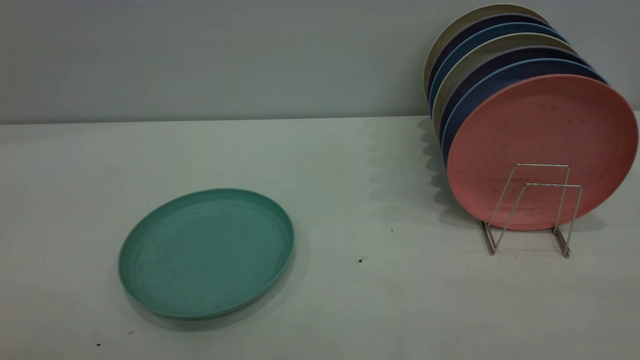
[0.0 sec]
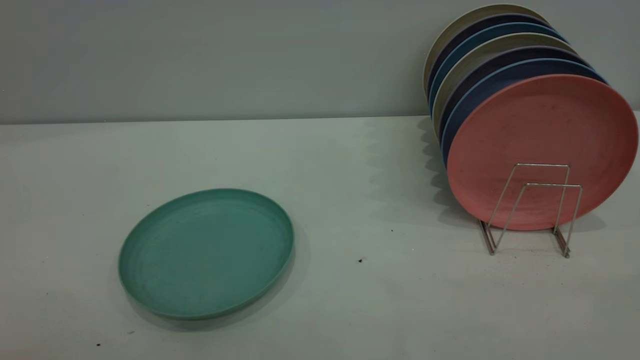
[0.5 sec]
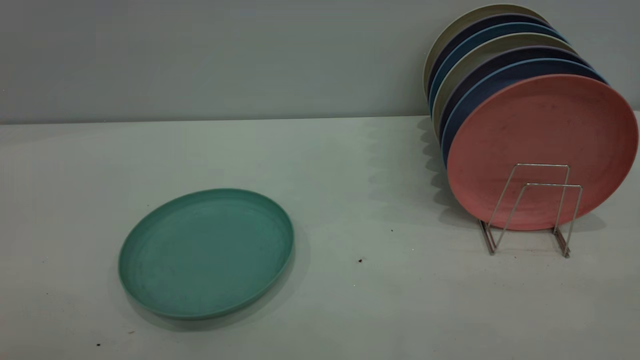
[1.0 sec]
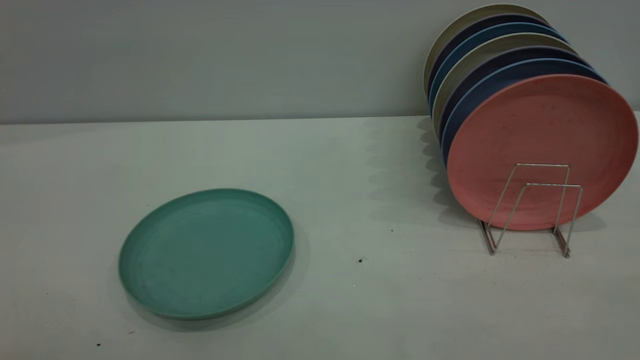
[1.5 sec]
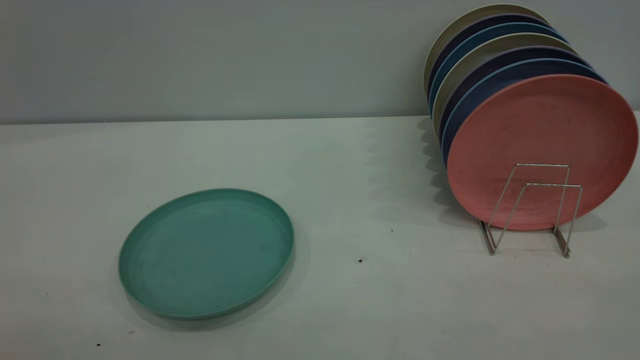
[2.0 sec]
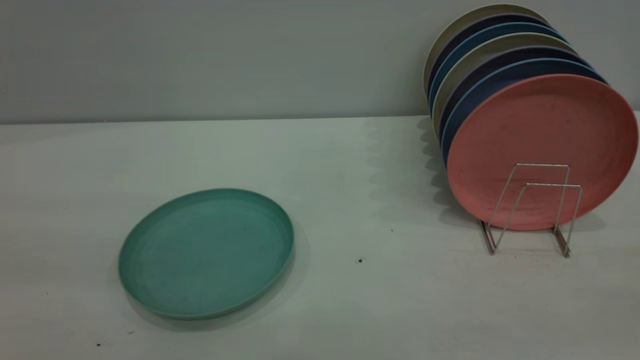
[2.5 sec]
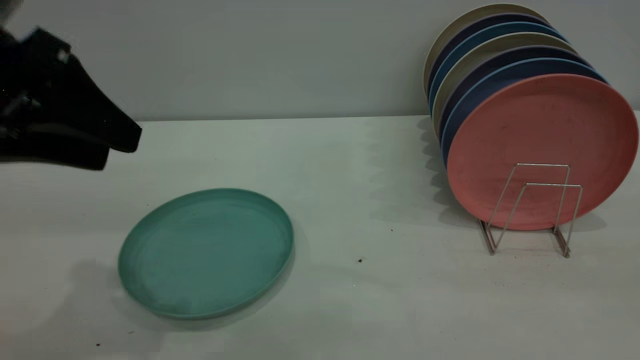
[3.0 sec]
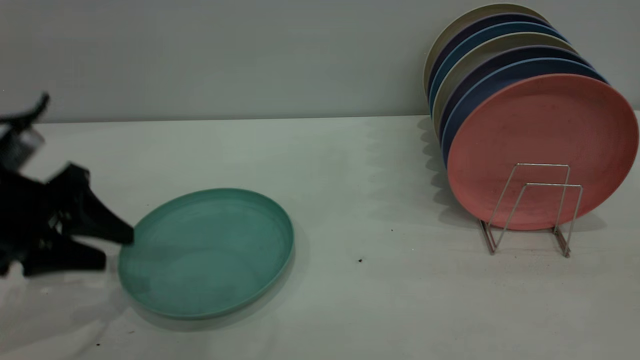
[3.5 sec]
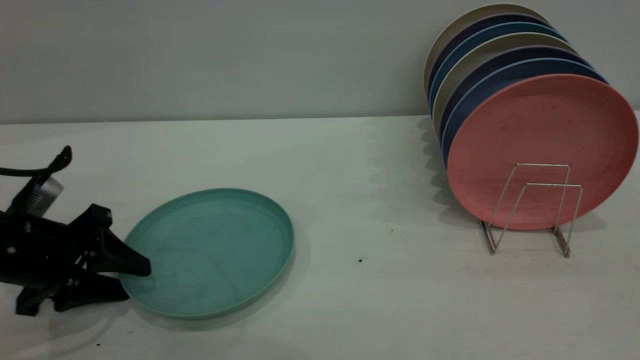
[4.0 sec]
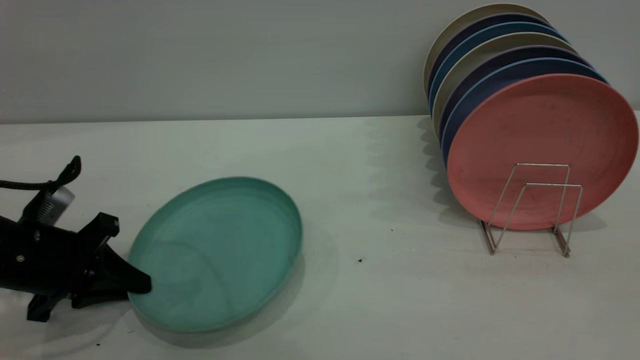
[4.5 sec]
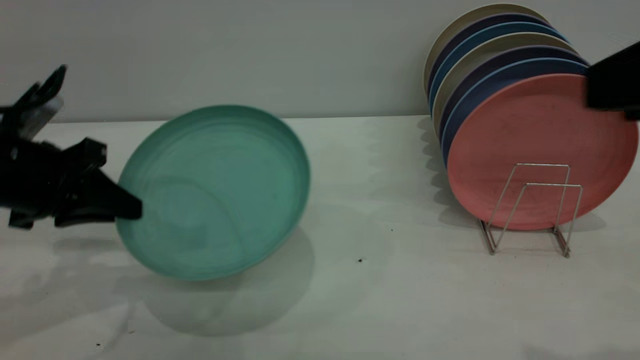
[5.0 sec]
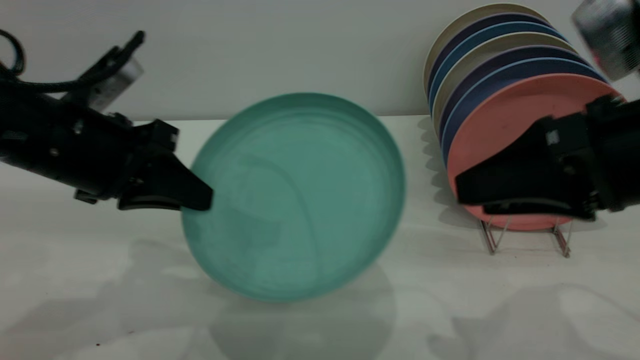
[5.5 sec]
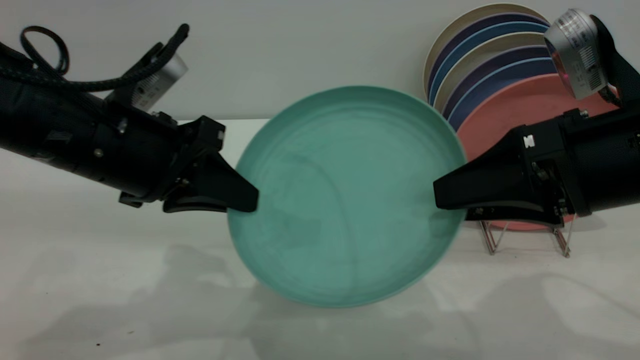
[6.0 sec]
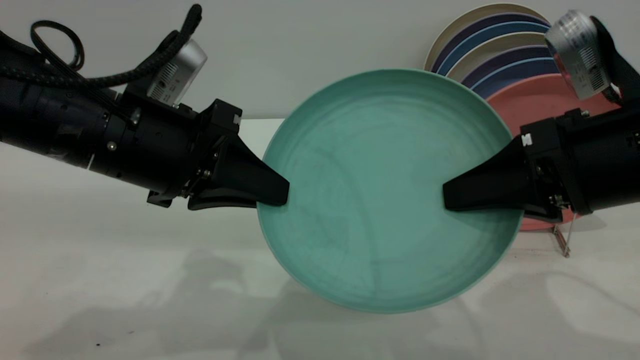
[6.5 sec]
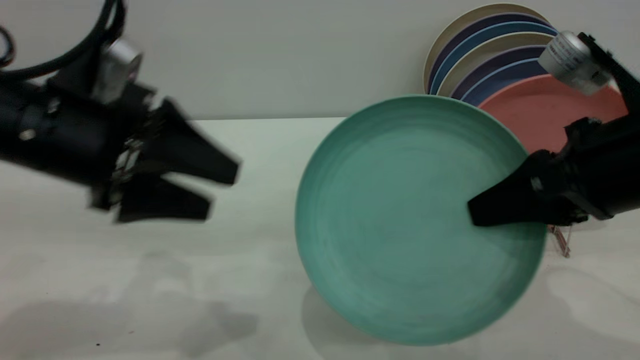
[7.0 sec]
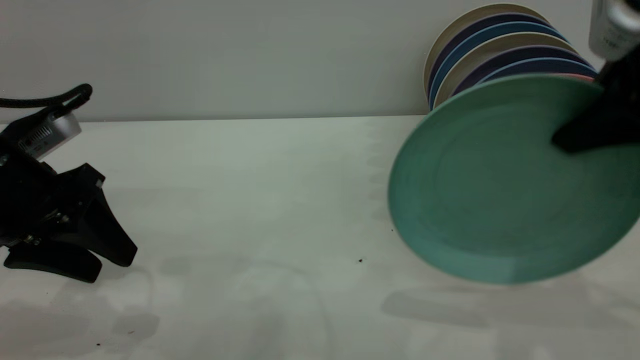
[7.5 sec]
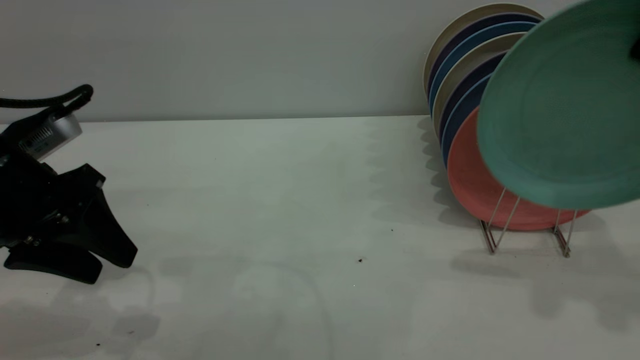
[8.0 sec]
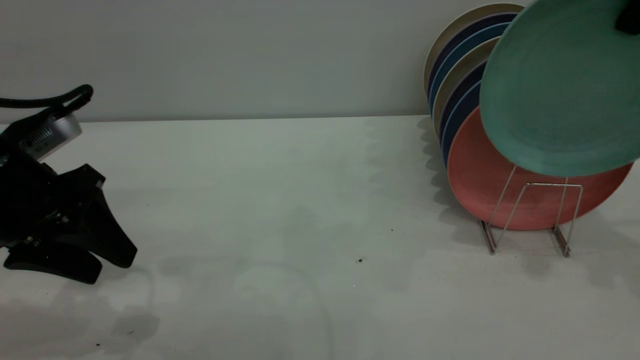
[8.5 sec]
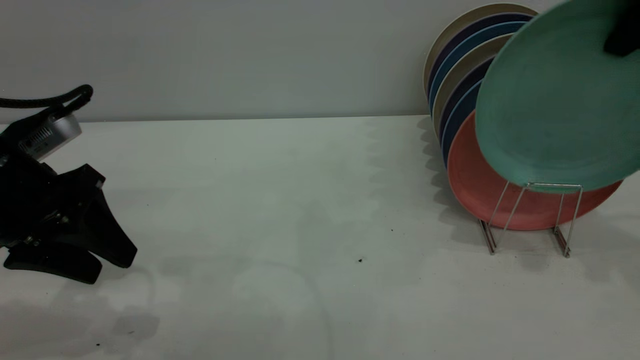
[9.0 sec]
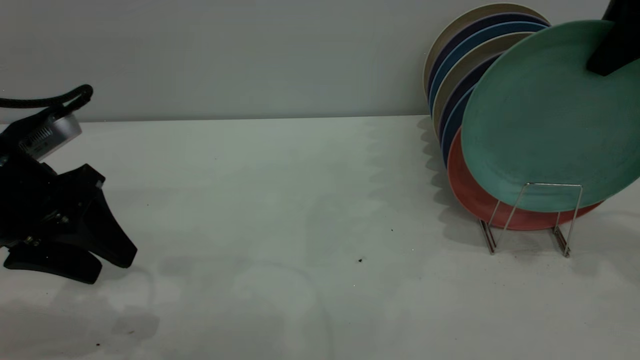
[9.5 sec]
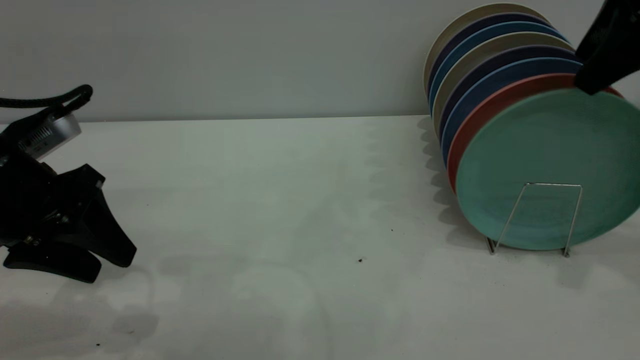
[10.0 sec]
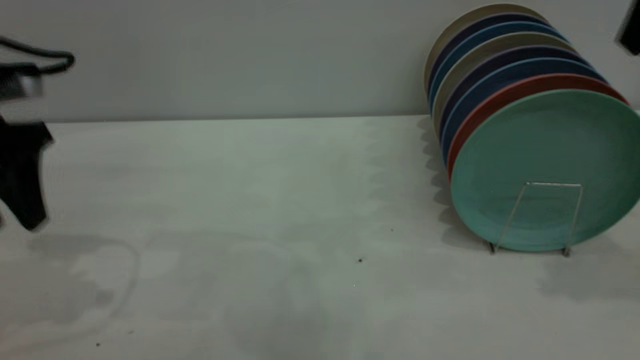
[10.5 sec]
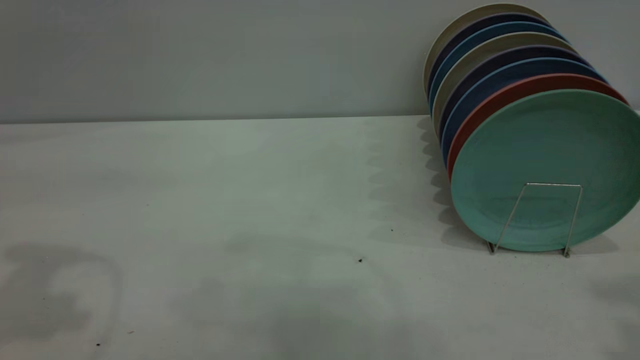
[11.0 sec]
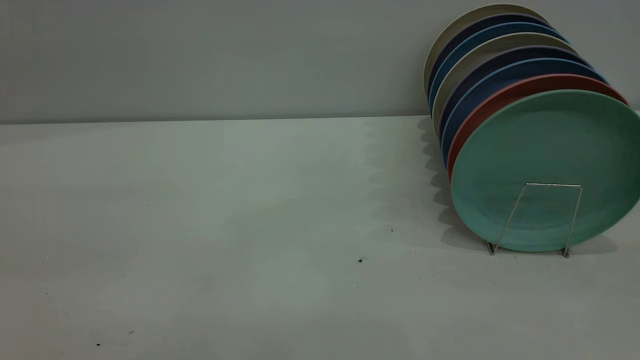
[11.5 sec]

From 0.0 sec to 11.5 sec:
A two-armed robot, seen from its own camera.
Task of the whole recording: the left gripper grasp the green plate, the left gripper pass the green plate to the right gripper, and the right gripper place the green plate on the plate rack.
Step, from 0.0 sec to 4.5 sec: Pick up the plate with the left gripper.
Step, from 5.5 sec to 7.0 sec: Pass the plate from the left gripper to the right gripper.
Step, from 7.5 sec to 10.0 sec: Place the plate on the shelf.
From 2.0 sec to 4.0 sec: The left gripper goes about 40 cm forward and downward.
From 4.0 sec to 6.0 sec: The right gripper moves downward and forward, approximately 20 cm, while the left gripper moves to the right and upward, approximately 15 cm, and closes up.
From 6.0 sec to 7.5 sec: The left gripper moves to the left, approximately 10 cm, and opens its fingers. The right gripper moves upward, about 10 cm, and closes.
From 7.5 sec to 9.5 sec: The right gripper heads forward, covering roughly 10 cm, and opens up.
From 9.5 sec to 11.5 sec: The left gripper moves upward and backward, roughly 25 cm, while the right gripper shifts some 35 cm backward, and opens its fingers.
